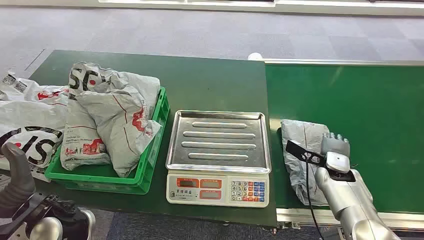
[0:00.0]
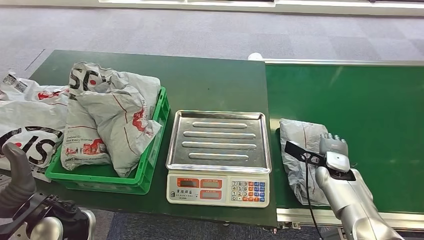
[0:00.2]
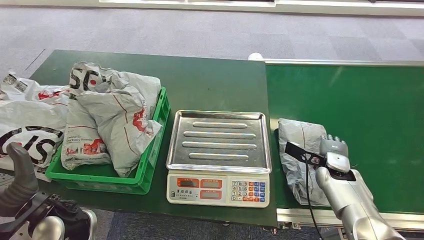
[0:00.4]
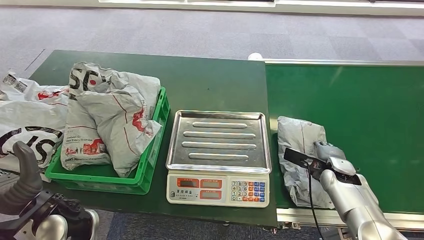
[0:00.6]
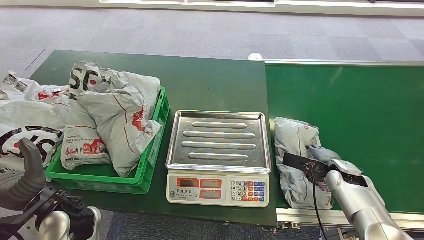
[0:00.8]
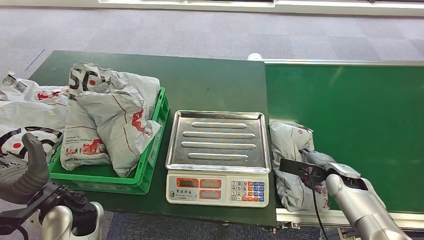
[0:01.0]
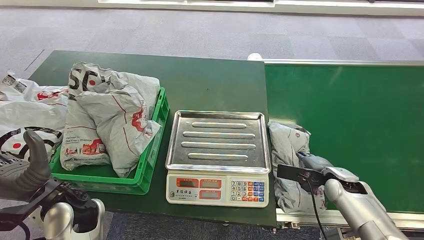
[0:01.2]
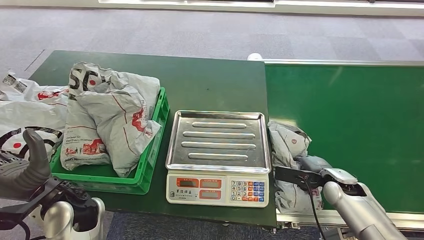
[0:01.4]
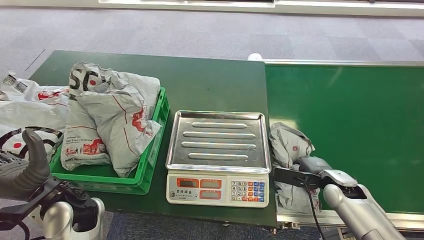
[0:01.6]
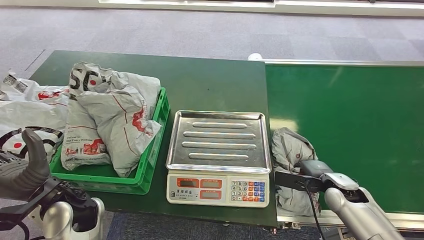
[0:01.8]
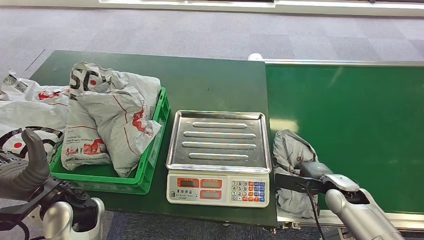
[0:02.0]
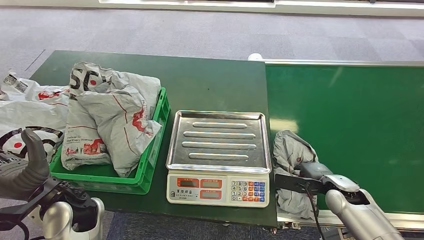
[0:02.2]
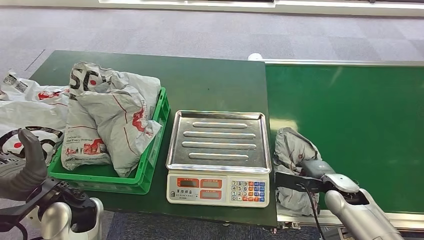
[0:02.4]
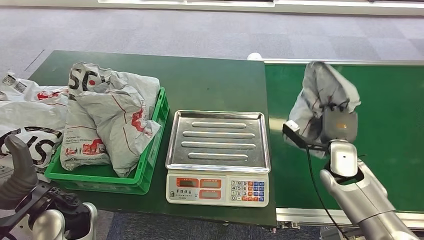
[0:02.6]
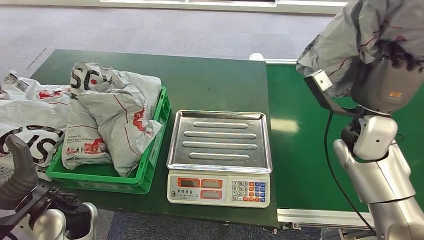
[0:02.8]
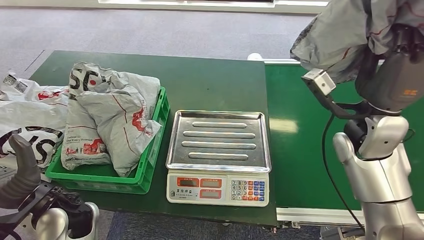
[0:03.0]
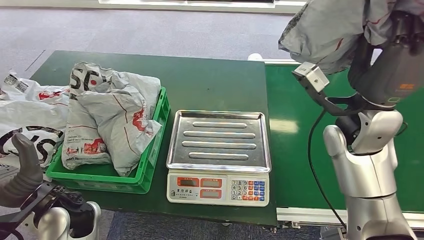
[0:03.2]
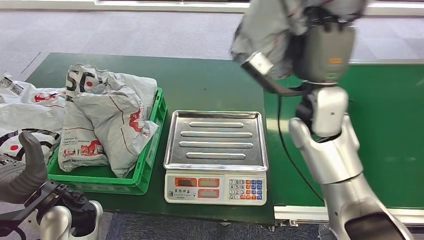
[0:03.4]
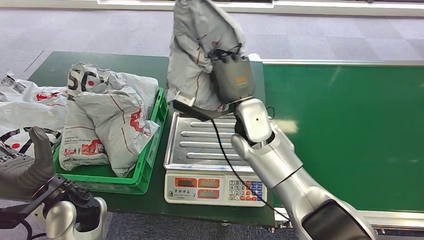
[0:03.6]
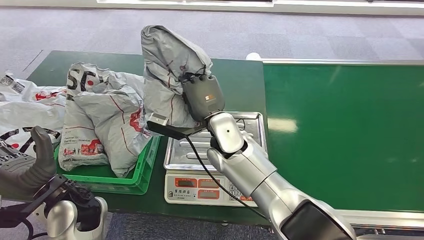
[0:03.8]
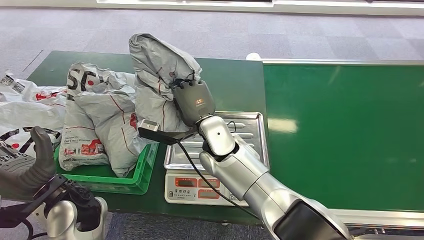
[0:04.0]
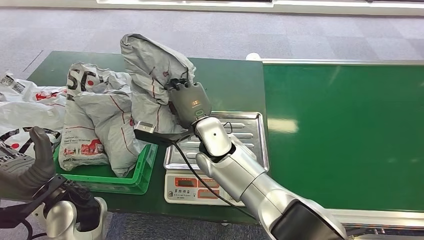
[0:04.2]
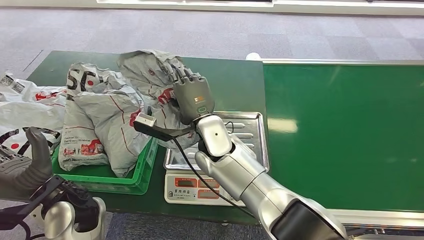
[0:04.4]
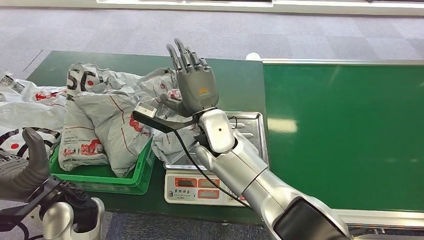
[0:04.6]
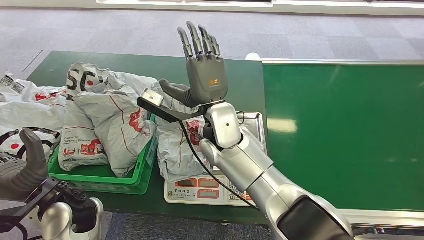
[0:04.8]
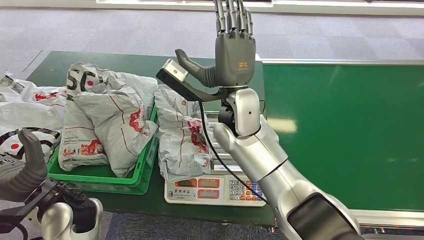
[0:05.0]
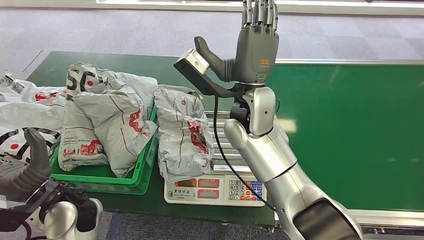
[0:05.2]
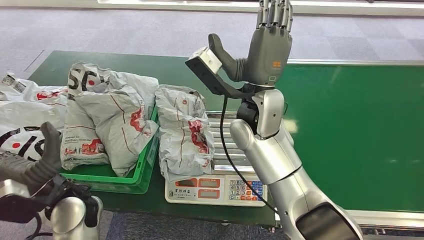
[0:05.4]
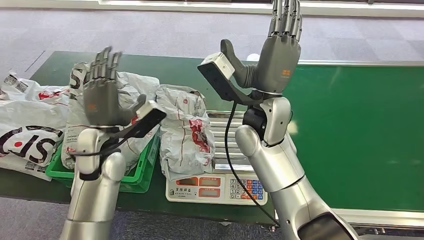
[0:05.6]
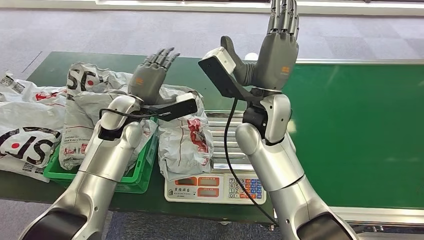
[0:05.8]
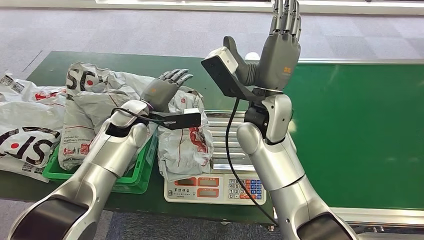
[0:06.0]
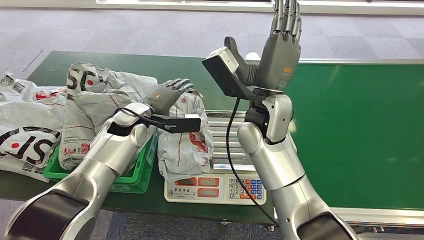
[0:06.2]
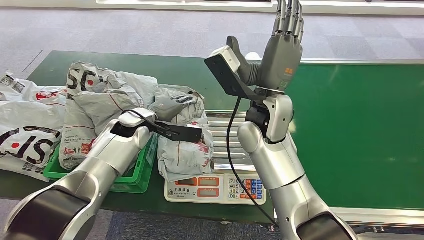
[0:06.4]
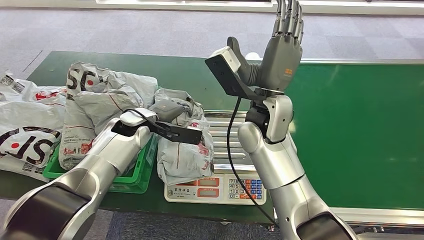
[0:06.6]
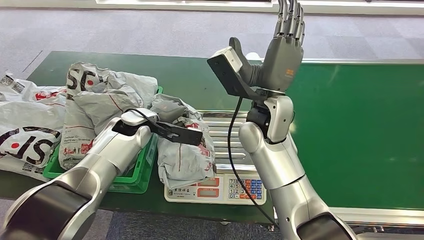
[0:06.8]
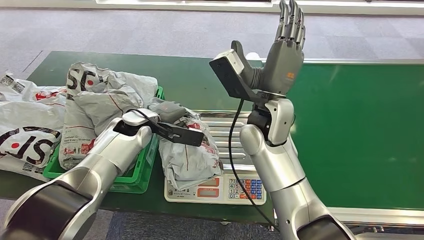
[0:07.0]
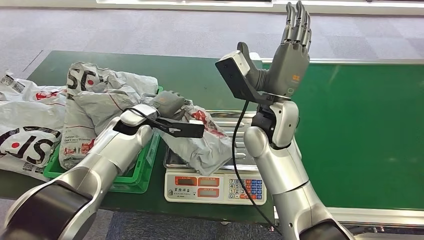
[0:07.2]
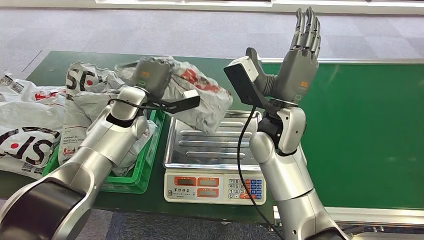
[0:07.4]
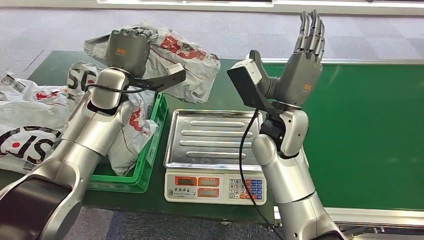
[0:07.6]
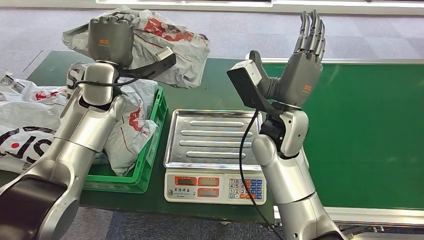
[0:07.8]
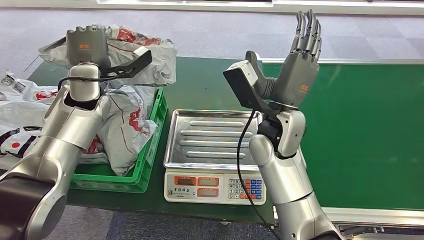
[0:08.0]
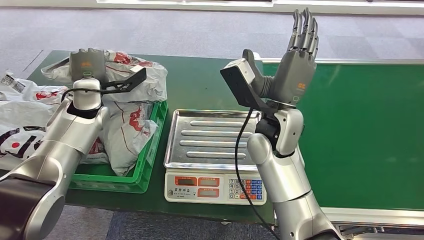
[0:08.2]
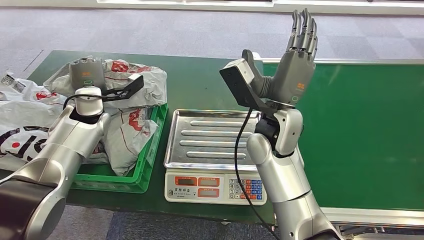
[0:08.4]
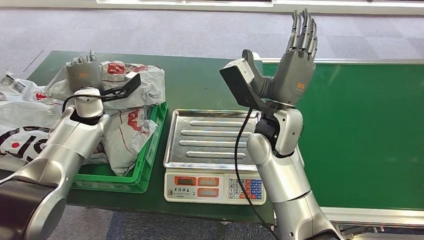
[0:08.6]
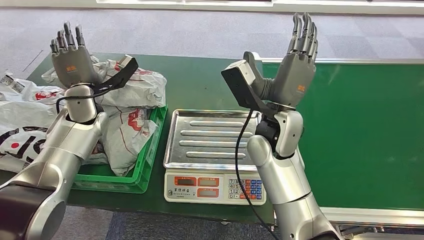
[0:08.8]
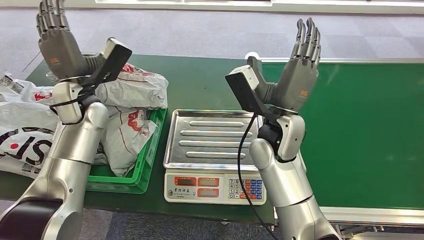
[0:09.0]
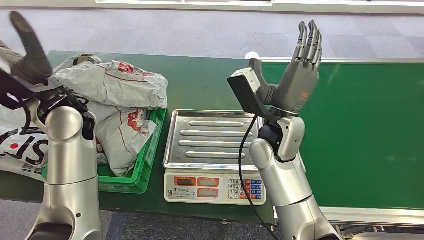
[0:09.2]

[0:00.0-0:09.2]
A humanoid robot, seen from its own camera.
Task of the whole recording: Weigh the package on the weighing device and place it in the left basket.
Step, 0:00.0 to 0:02.4: Pick up the package from the conveyor belt.
Step, 0:02.8 to 0:05.2: Place the package onto the inbound machine.
Step, 0:05.4 to 0:07.8: Pick up the package from the inbound machine.
Step, 0:08.0 to 0:09.2: Place the package into the parcel locker.

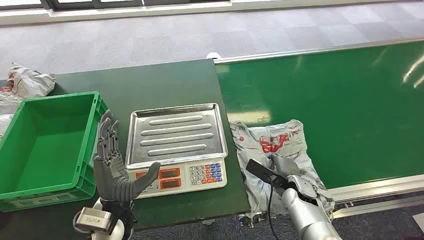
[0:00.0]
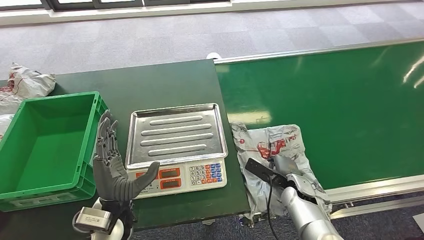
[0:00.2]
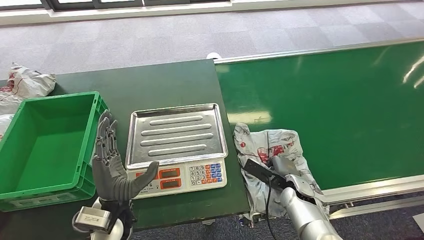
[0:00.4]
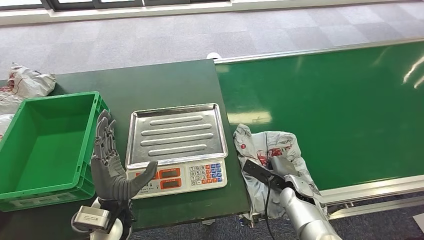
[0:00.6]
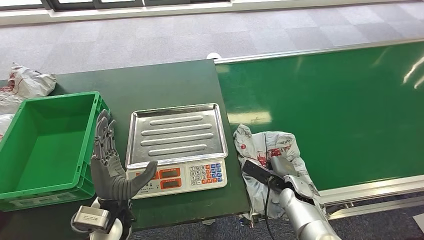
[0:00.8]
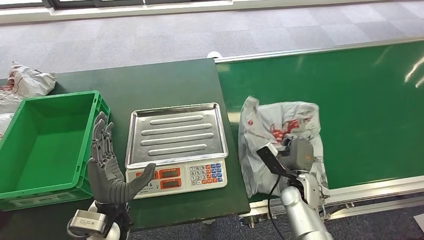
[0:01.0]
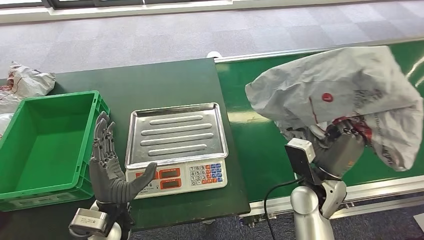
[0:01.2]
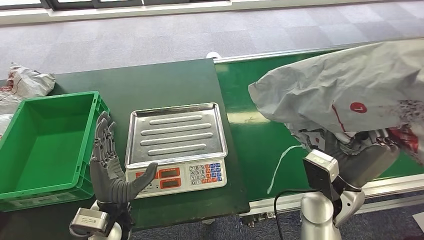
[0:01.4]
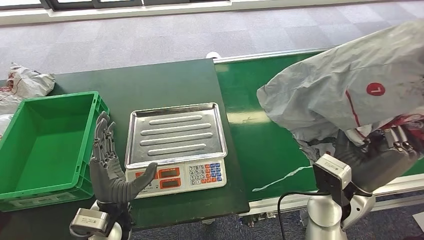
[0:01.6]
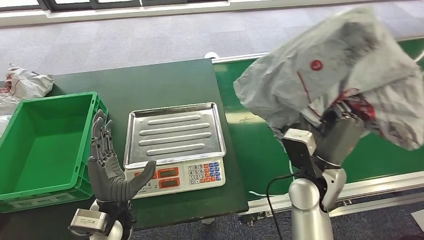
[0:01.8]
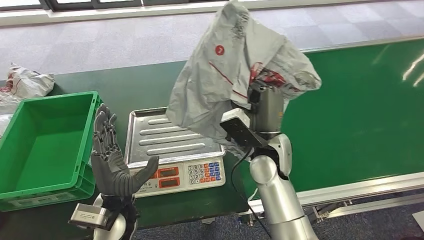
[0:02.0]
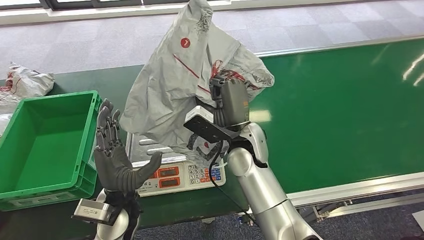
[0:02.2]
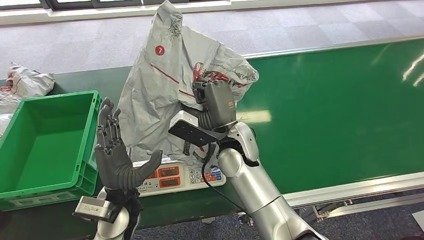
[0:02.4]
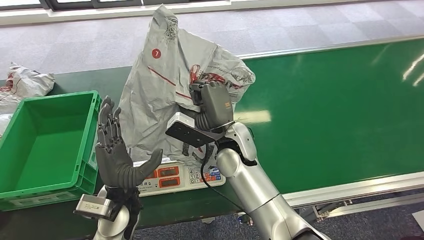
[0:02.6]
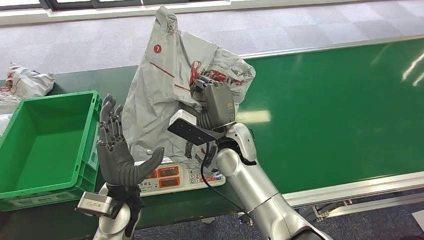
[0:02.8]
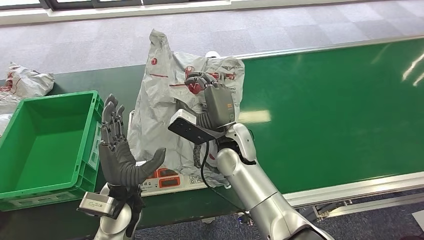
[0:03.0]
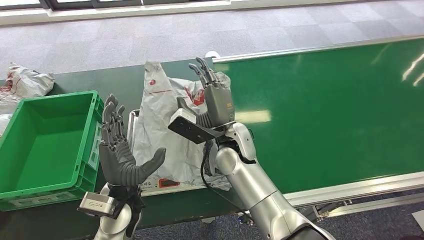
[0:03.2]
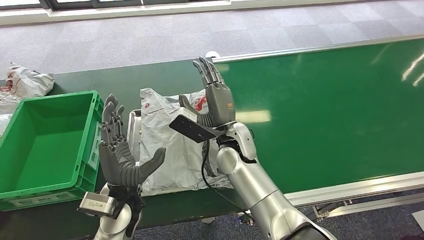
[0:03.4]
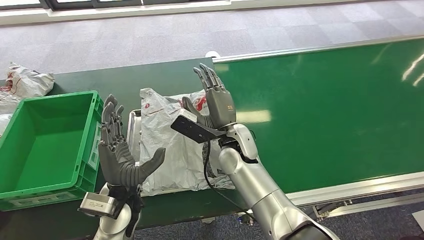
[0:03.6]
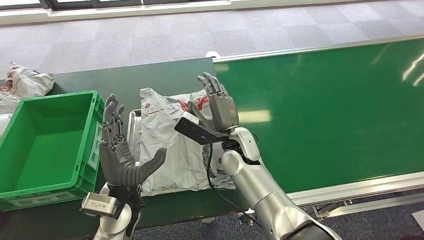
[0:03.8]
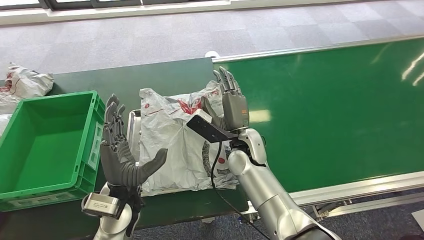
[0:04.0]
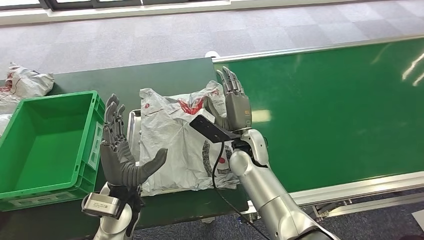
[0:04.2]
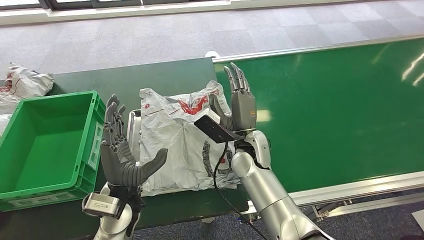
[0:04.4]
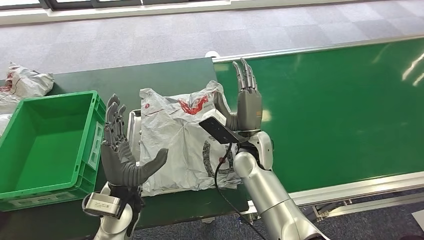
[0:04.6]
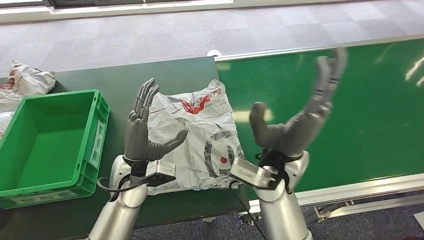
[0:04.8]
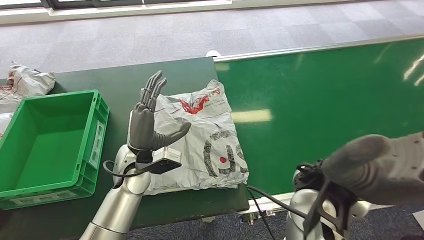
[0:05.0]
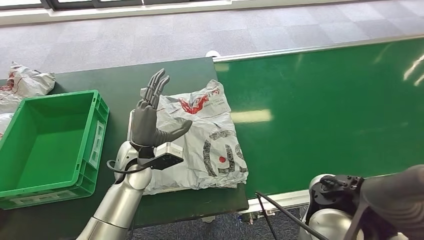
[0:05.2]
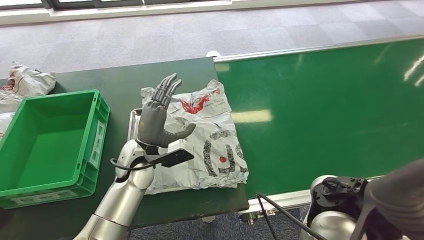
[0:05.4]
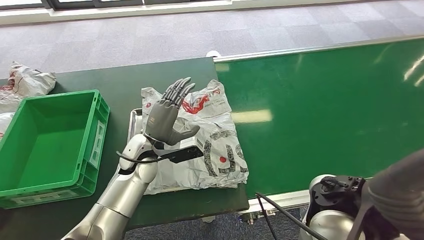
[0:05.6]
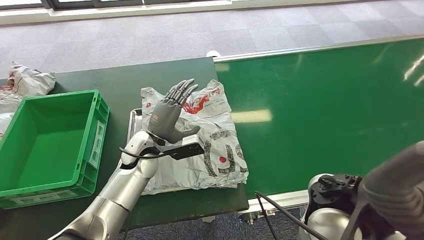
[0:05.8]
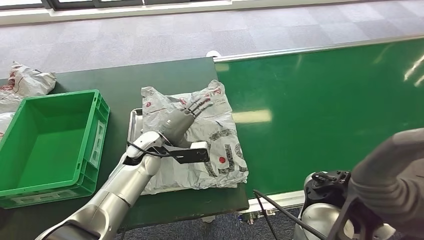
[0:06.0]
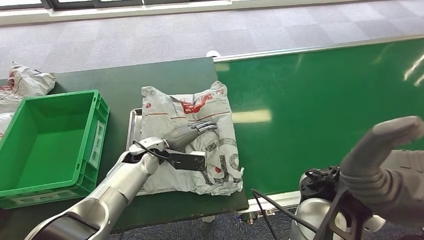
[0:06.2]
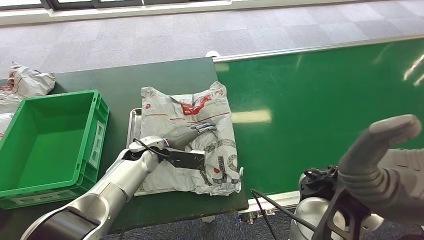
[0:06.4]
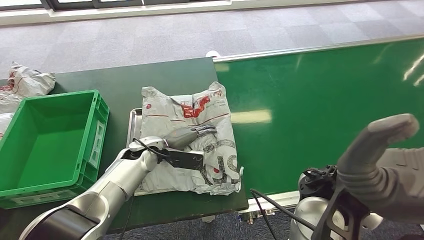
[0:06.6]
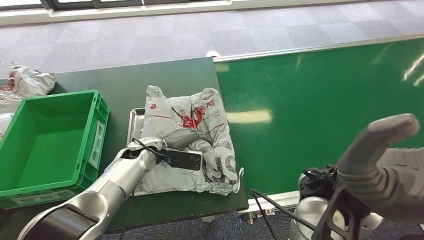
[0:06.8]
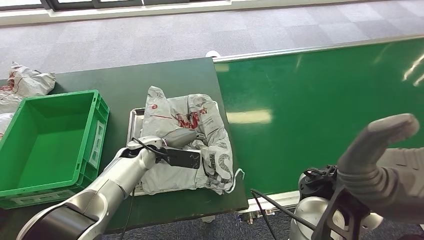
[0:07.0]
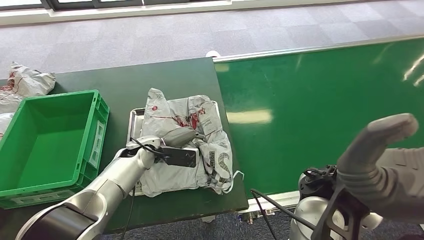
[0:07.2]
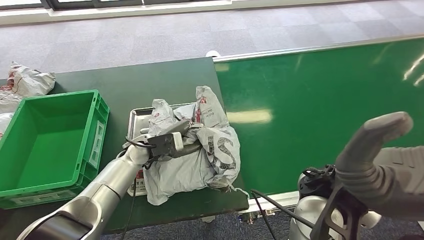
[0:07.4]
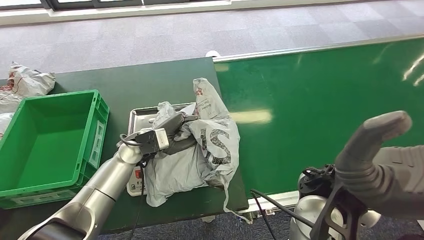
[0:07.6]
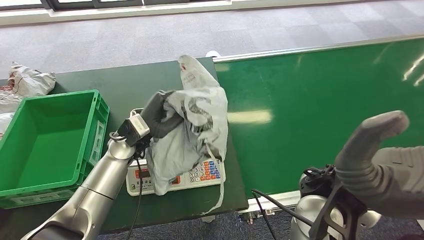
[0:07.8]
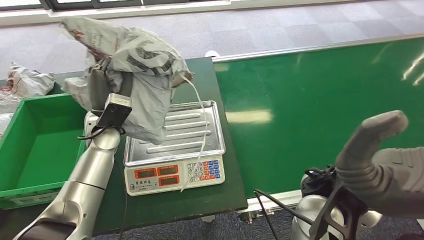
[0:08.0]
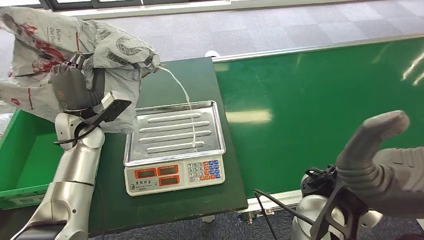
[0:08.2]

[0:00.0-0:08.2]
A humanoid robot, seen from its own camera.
Task of the whole recording: Weigh the package on the weighing device and place it in the left basket.
Step, 0:00.0 to 0:01.4: Pick up the package from the conveyor belt.
Step, 0:01.8 to 0:04.6: Place the package onto the inbound machine.
Step, 0:04.8 to 0:08.0: Pick up the package from the inbound machine.
